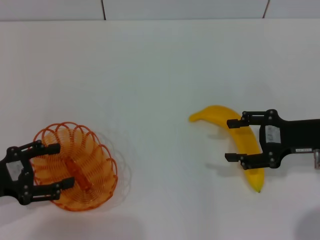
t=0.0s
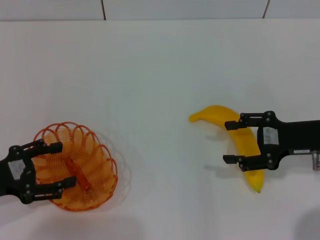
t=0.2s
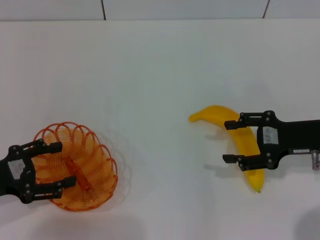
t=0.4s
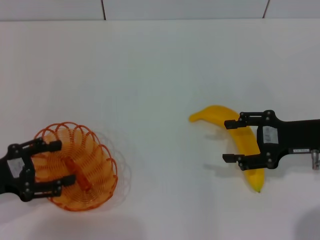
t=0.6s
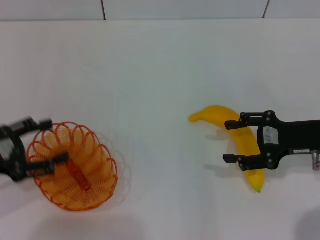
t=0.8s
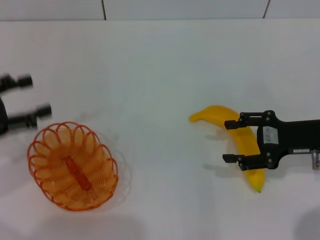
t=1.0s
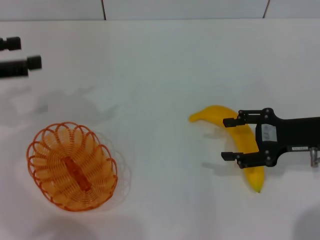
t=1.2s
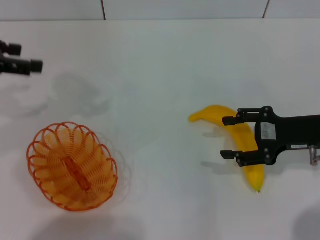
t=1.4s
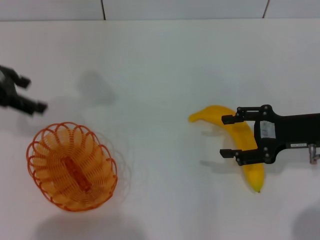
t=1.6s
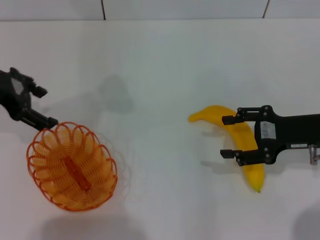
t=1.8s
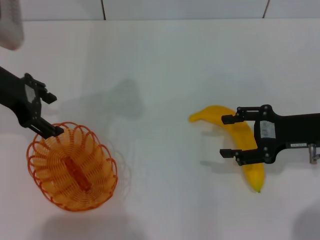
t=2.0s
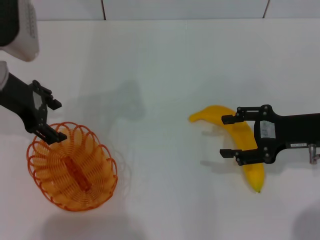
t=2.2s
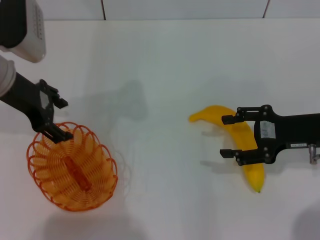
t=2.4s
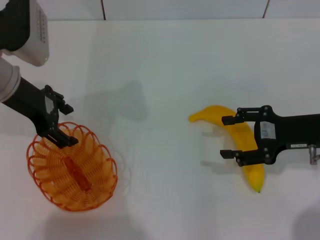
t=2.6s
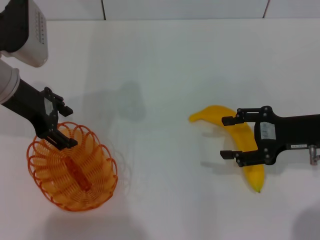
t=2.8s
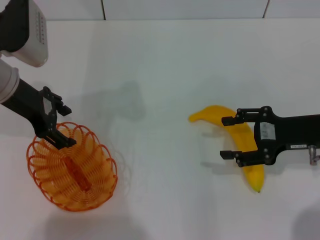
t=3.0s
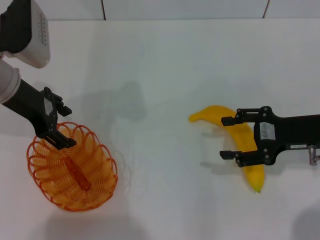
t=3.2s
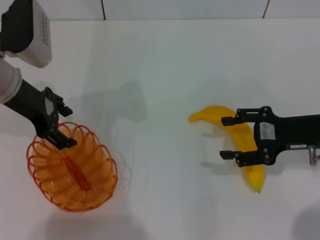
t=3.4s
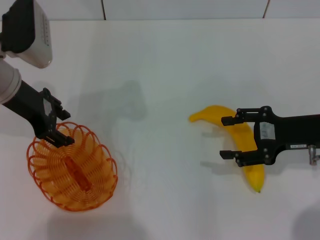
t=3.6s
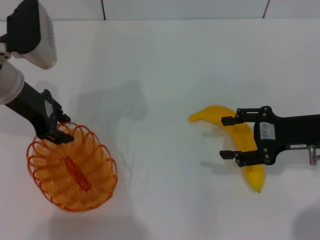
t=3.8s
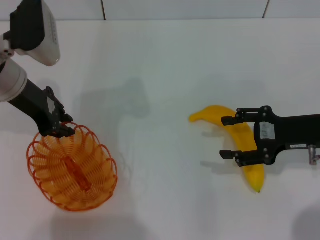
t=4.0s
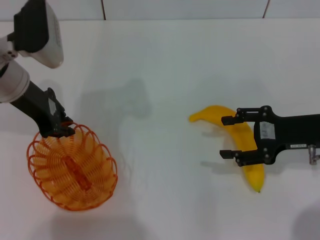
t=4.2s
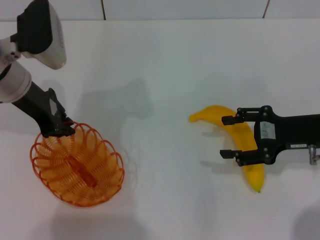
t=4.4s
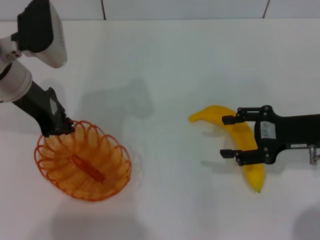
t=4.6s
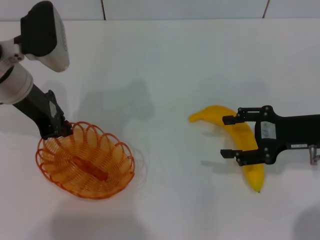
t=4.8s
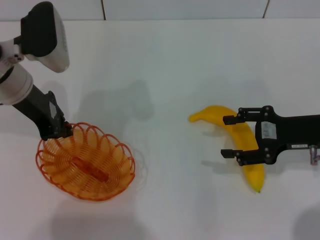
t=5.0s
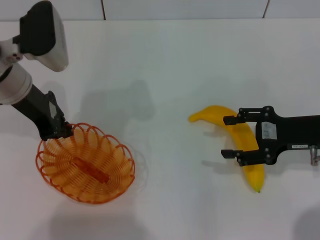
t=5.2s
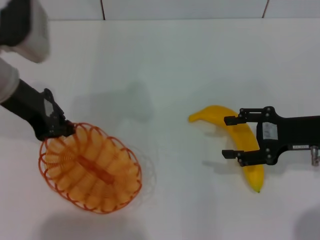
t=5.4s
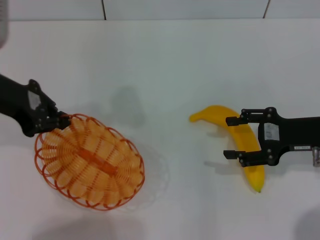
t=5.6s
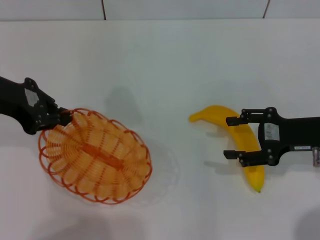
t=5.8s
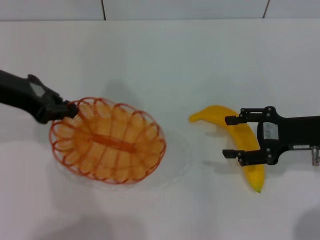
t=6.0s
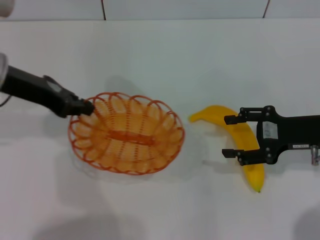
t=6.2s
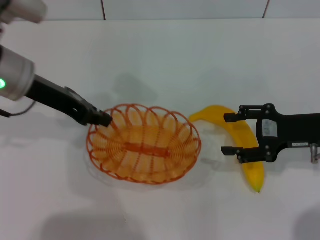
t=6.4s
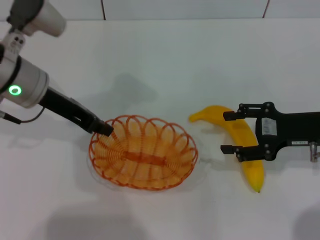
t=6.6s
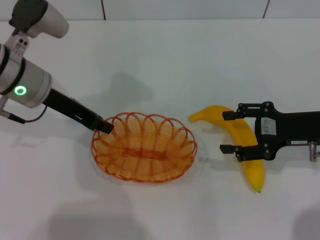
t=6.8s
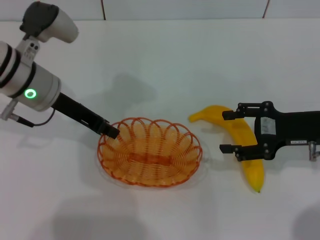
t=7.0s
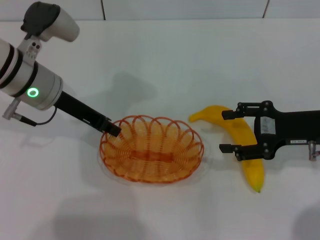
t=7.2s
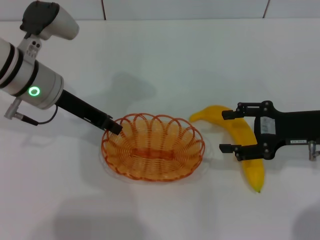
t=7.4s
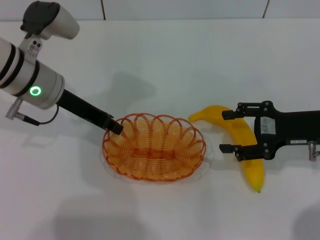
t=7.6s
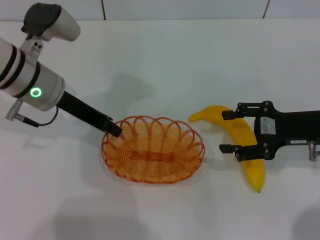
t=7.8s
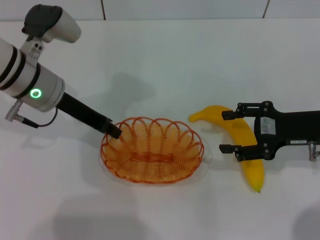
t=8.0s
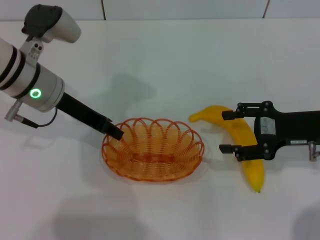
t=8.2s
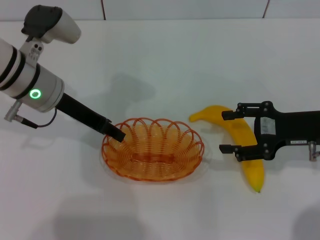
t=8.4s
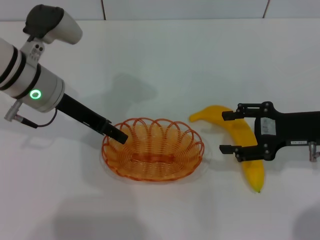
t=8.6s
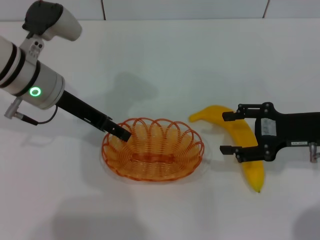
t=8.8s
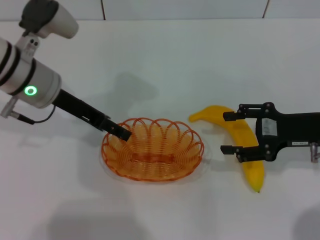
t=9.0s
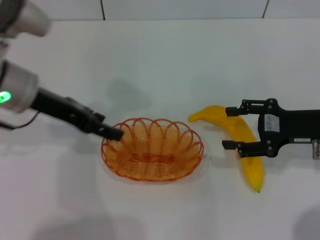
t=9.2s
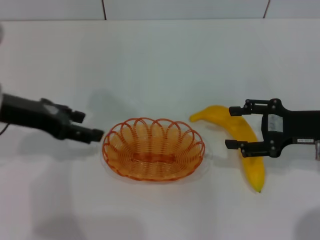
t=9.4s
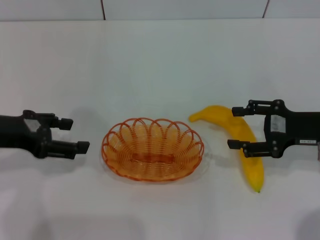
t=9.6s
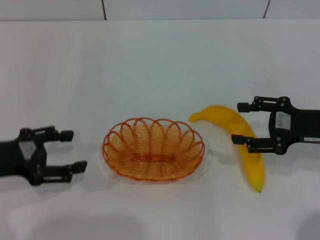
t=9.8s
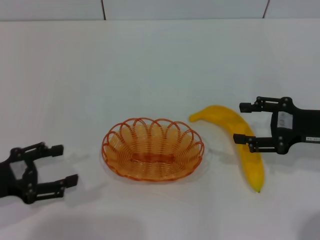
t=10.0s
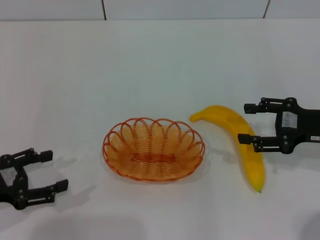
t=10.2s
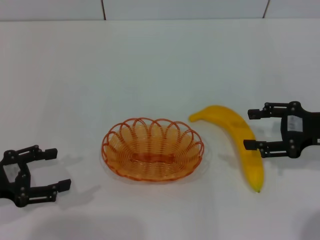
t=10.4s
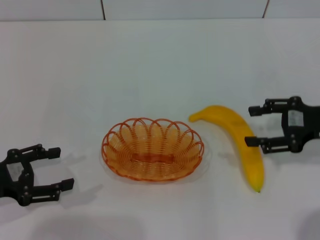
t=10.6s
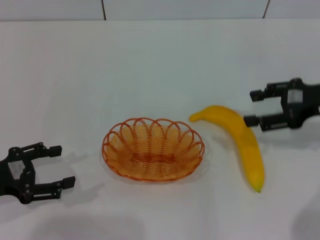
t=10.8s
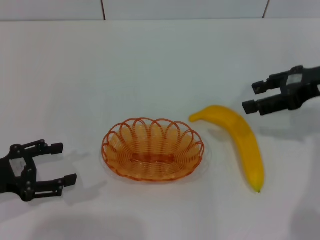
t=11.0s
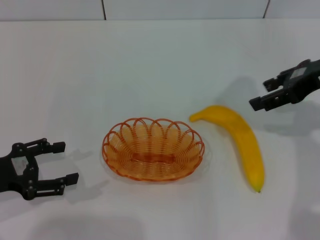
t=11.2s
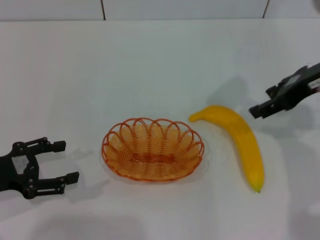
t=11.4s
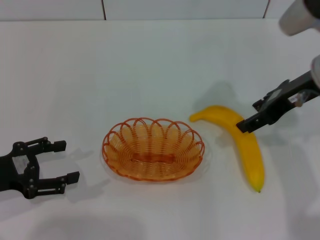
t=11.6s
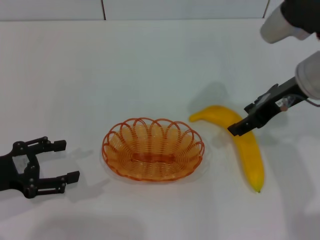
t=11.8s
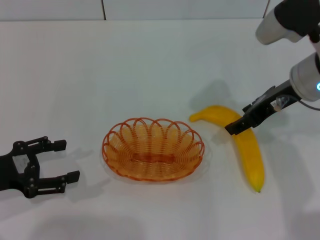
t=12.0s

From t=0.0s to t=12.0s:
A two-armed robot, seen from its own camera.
Step, from t=0.0s to t=5.4s: Pick up the basket with the left gripper.
Step, from t=5.6s to t=9.2s: Place the basket in the center of view with the left gripper.
From t=0.0s to t=1.6s: The left gripper shifts approximately 20 cm upward and forward.
From t=1.6s to t=3.0s: The left gripper shifts roughly 5 cm to the right.
From t=3.0s to t=4.4s: The left gripper closes.
From t=4.4s to t=6.0s: The left gripper ends up approximately 5 cm from where it was.
From t=6.0s to t=7.6s: The left gripper shifts about 10 cm to the right and downward.
From t=7.6s to t=9.0s: The left gripper opens its fingers.
From t=9.0s to t=10.4s: The left gripper is displaced backward, to the left and downward by approximately 20 cm.
From t=10.4s to t=12.0s: The right gripper travels to the left, upward and forward by roughly 15 cm.

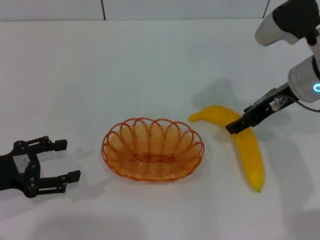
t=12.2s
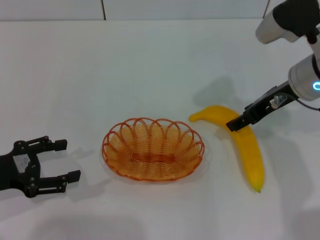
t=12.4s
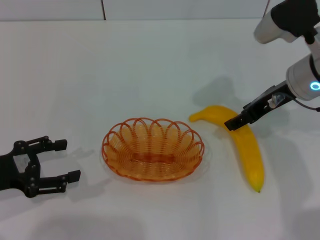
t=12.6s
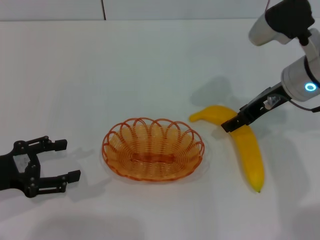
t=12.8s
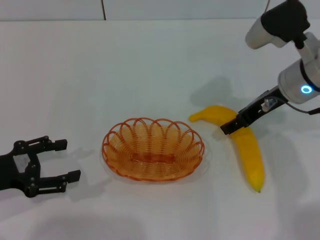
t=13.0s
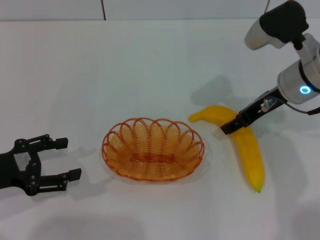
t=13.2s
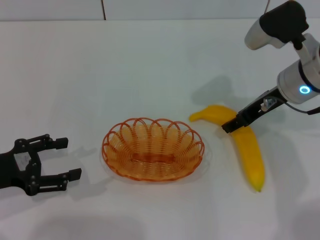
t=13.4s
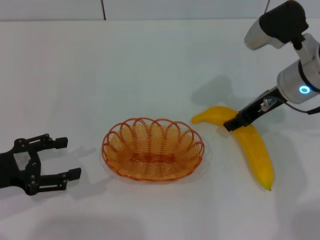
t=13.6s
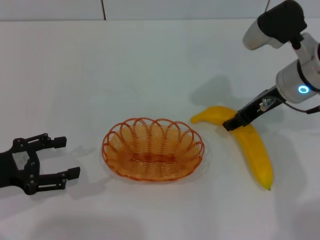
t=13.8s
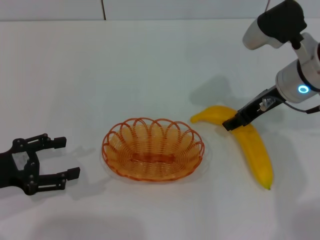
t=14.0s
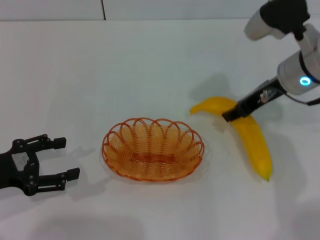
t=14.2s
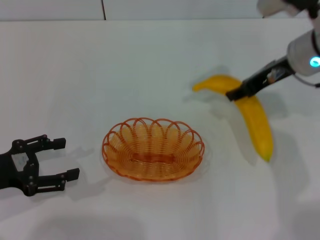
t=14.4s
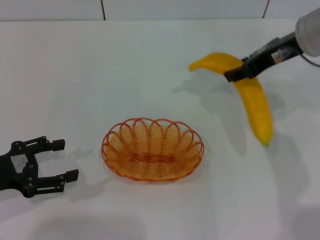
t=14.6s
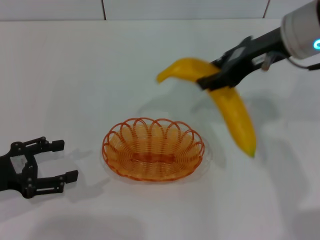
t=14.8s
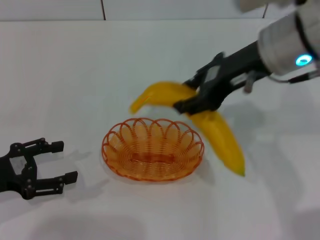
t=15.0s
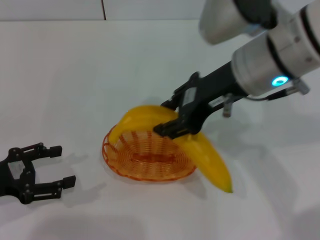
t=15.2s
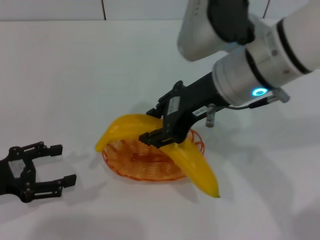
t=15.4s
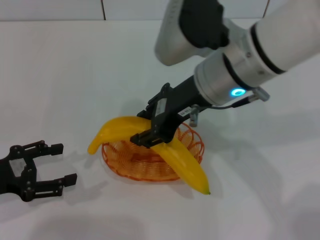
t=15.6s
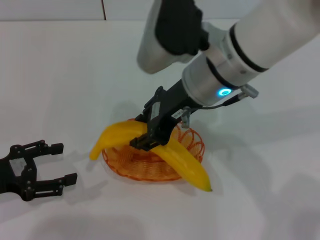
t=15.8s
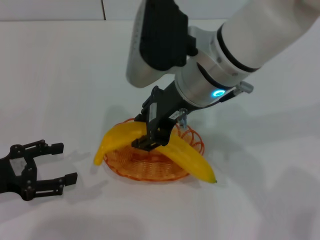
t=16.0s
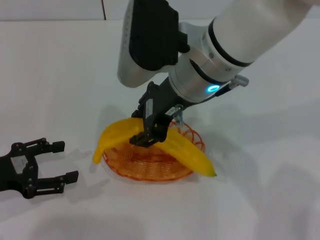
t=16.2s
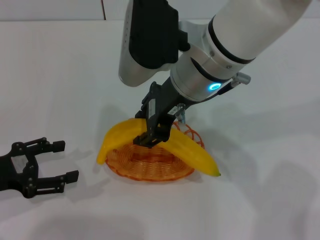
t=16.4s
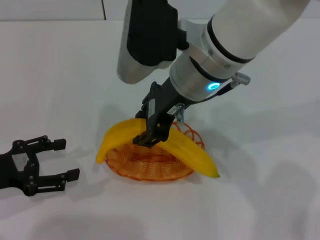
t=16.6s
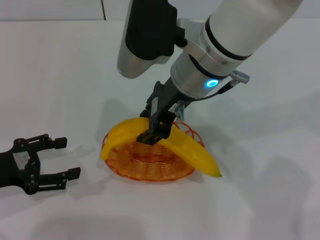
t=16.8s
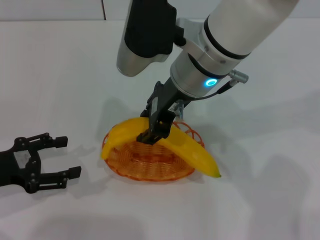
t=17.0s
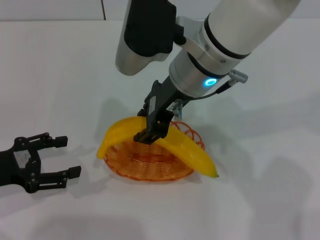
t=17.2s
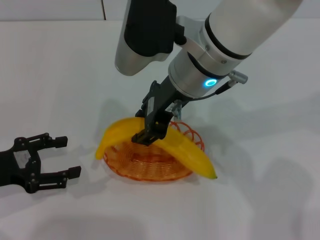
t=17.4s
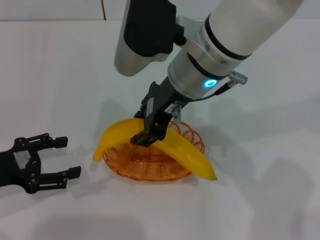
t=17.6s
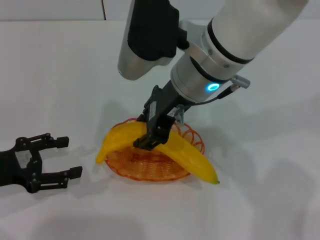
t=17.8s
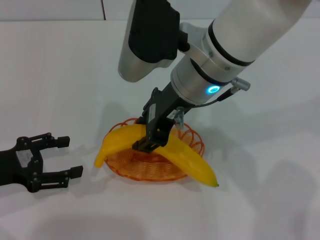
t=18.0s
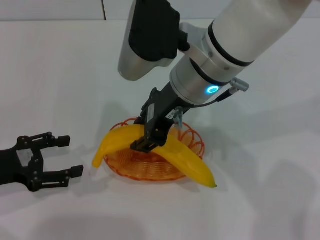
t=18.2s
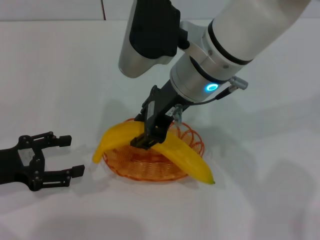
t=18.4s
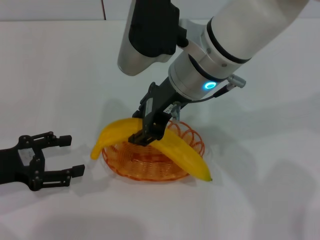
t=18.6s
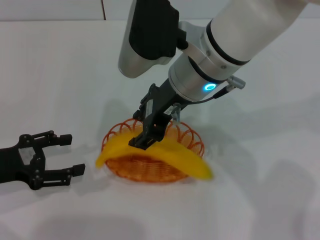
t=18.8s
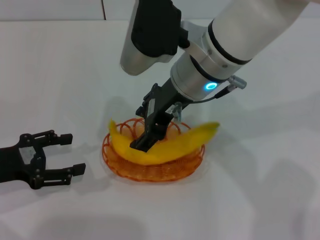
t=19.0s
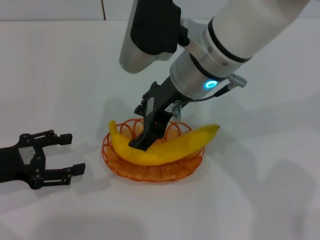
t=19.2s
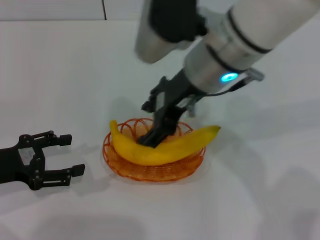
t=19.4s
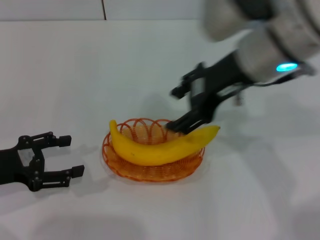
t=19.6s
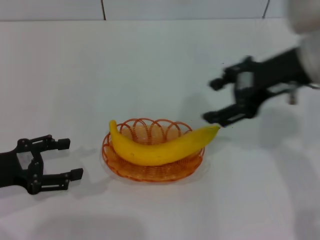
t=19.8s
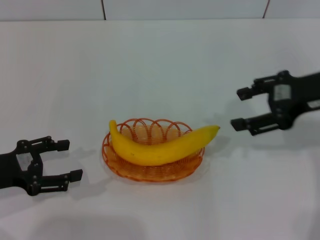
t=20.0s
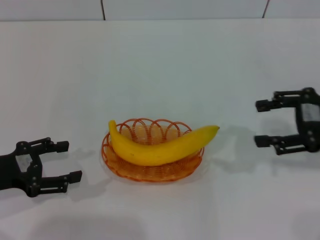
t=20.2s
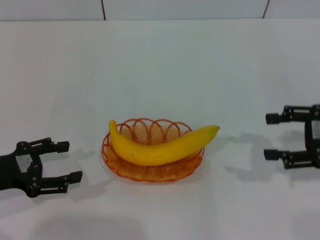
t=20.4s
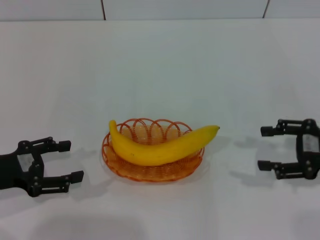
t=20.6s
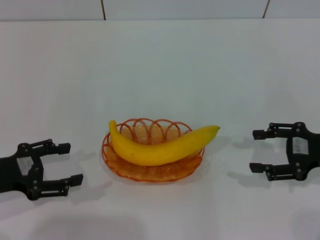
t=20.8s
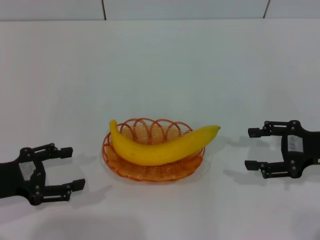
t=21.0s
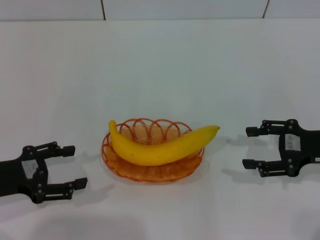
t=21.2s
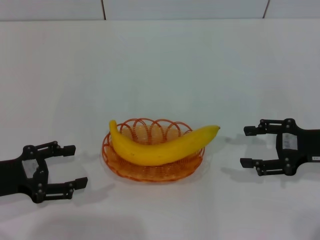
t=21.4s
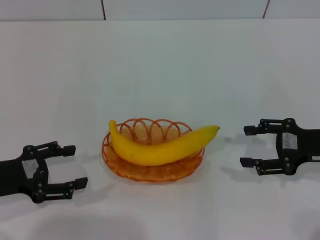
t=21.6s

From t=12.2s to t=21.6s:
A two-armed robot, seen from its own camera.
Step, from t=12.2s to t=14.2s: Pick up the banana with the right gripper.
Step, from t=14.6s to t=19.0s: Place the banana into the basket with the right gripper.
From t=12.2s to t=13.8s: The right gripper closes its fingers.
From t=13.8s to t=15.4s: The right gripper is displaced to the left, upward and backward by roughly 15 cm.
From t=15.4s to t=17.0s: The right gripper is displaced to the left by about 5 cm.
From t=17.0s to t=18.4s: Both grippers stay put.
From t=18.4s to t=20.0s: The right gripper heads to the right, covering about 20 cm, and opens up.
From t=20.0s to t=21.6s: The right gripper moves downward and to the right, approximately 15 cm.
